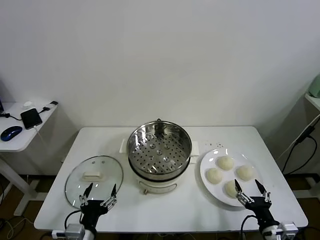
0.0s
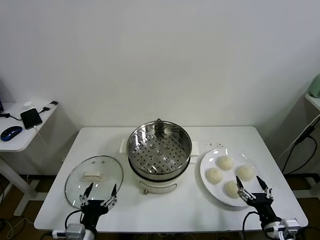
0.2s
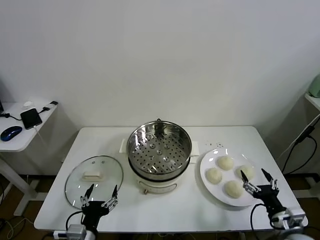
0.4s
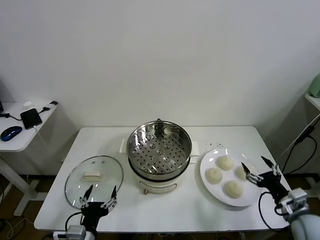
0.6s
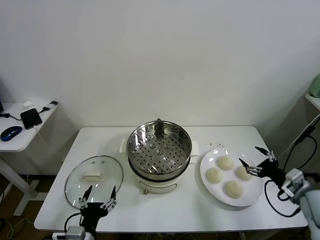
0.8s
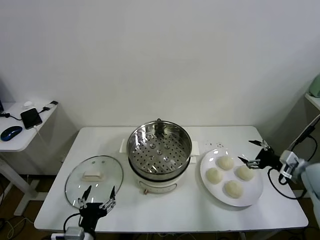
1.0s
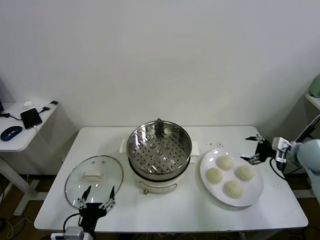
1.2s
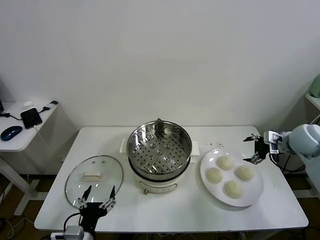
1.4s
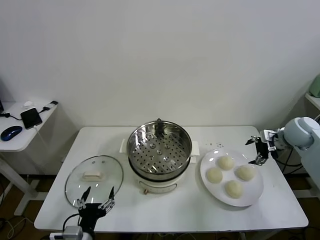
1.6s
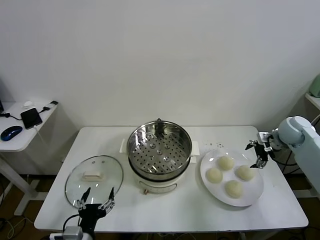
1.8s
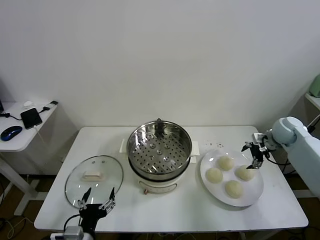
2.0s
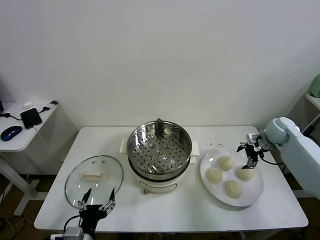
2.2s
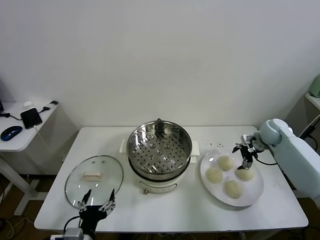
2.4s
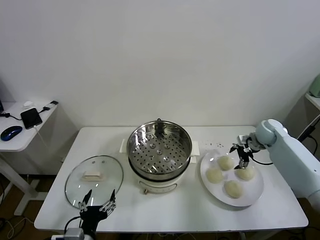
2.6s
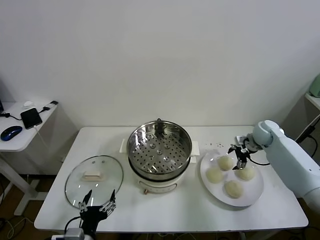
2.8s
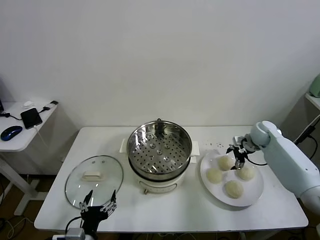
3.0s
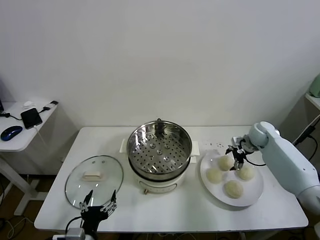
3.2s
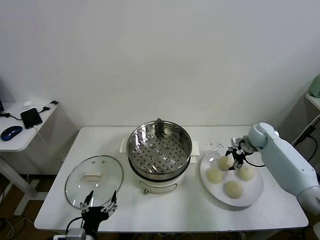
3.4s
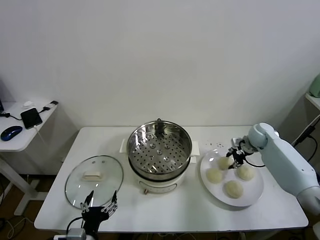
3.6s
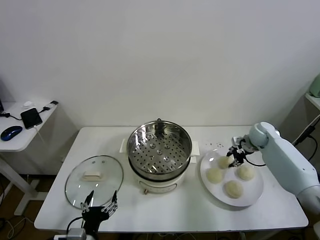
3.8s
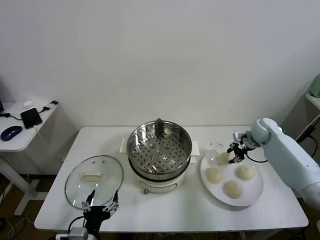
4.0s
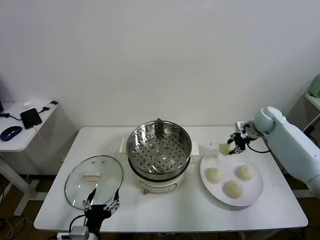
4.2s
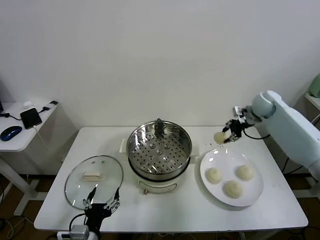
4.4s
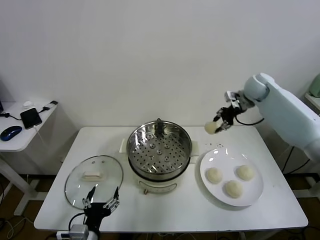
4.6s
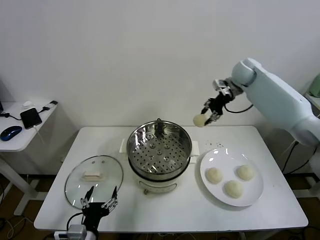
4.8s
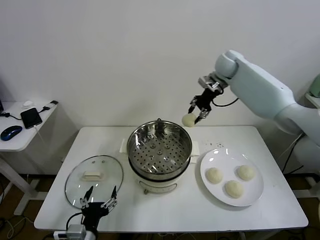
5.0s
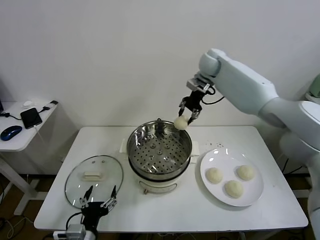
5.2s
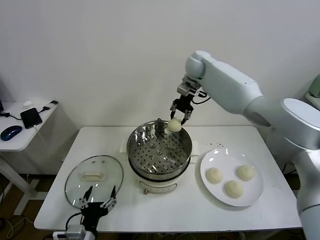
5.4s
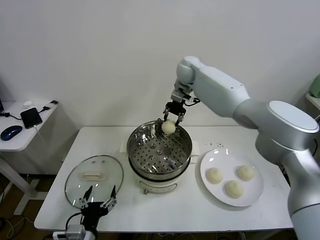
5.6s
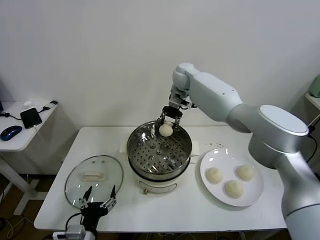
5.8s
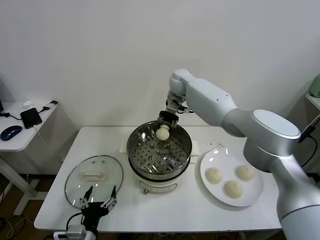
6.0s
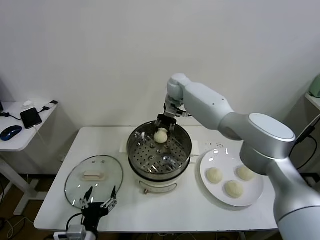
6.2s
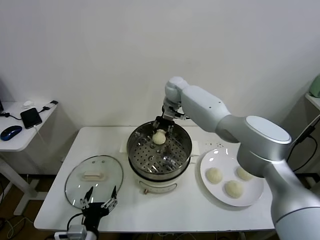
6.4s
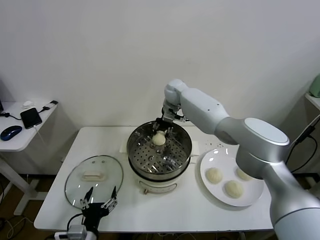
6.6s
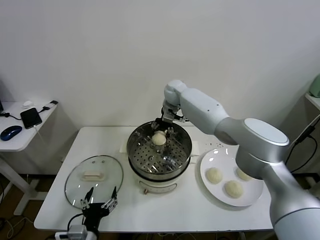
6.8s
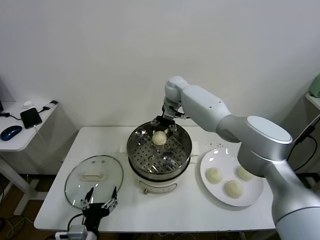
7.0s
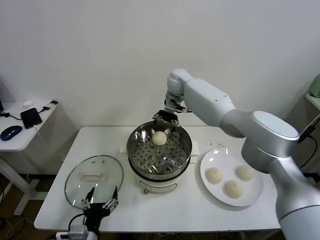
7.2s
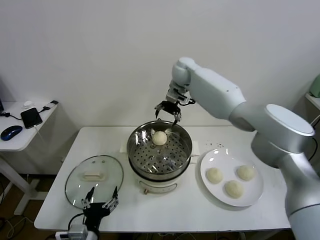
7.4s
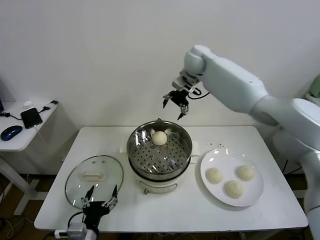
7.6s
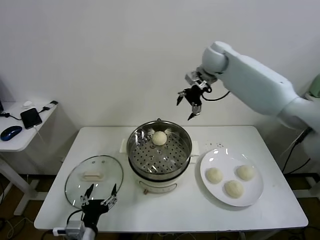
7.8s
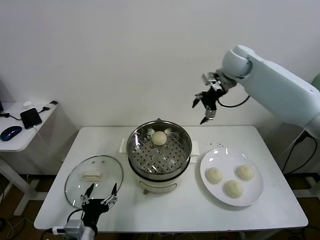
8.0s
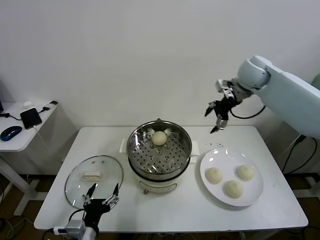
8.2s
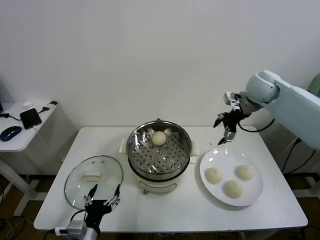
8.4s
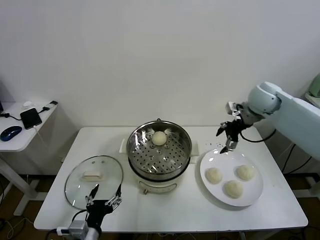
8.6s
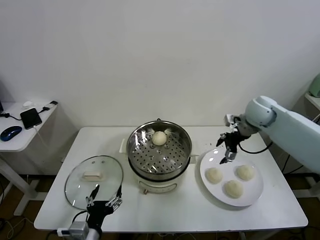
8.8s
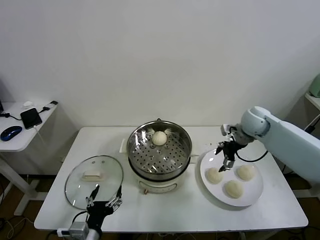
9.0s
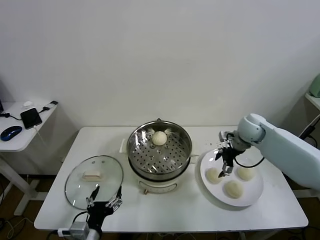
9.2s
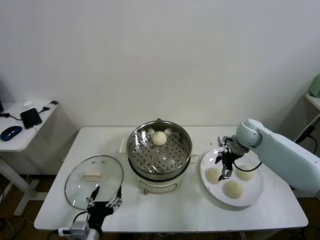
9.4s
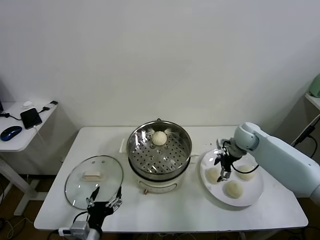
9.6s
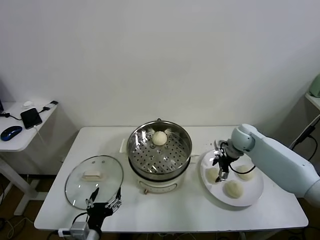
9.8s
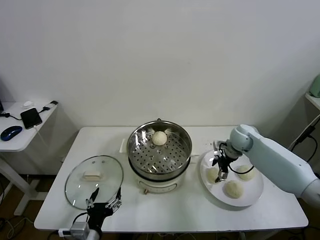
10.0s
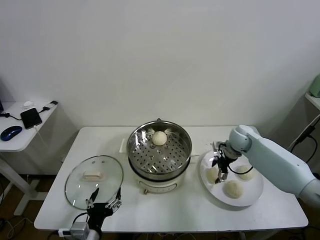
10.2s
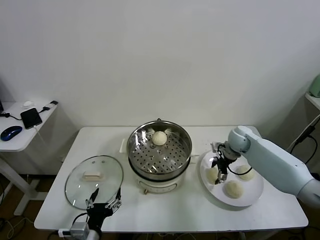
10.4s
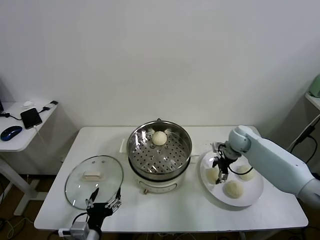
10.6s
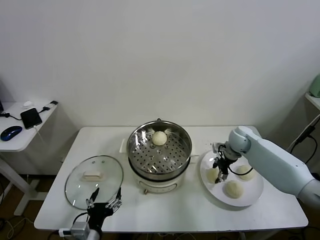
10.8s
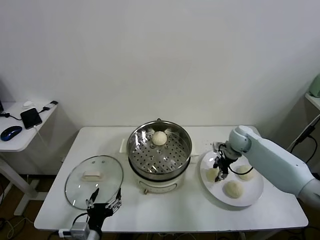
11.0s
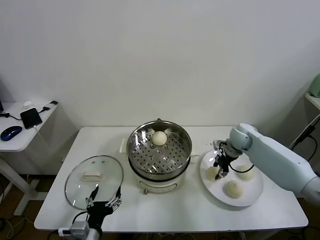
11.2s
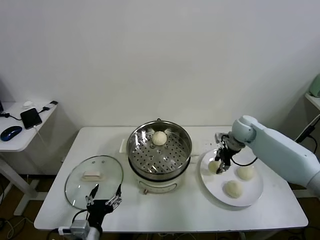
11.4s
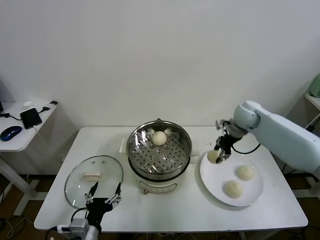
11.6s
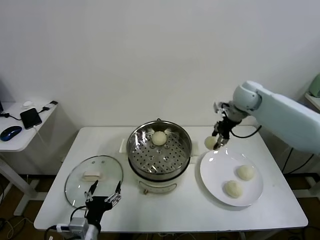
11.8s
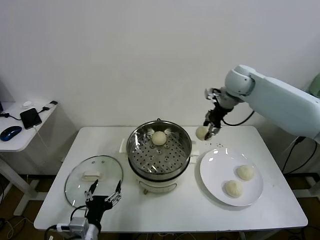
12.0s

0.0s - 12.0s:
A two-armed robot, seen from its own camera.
Task of the whole recording: take steamed baozi put them in steamer.
Step, 0.0s - 3.6s: Grasp the baozi in the plate with right gripper.
Step, 3.8s - 7.0s: Place the baozi on the steamer with right gripper.
Step, 7.2s - 10.6s: Grasp the baozi in the plate with right gripper.
1.6s - 3.0s: The right gripper moves downward, forward and to the left, some 10 cm.
3.0s - 4.4s: The right gripper heads upward, covering roughly 15 cm, and closes its fingers.
4.4s - 6.0s: The right gripper heads to the left, covering some 30 cm.
6.0s - 7.6s: The right gripper moves upward and to the right, roughly 15 cm, and opens up.
7.6s - 9.0s: The right gripper travels downward, to the right and backward by some 30 cm.
9.0s - 10.4s: The right gripper shifts about 10 cm downward.
10.4s - 12.0s: The right gripper shifts roughly 25 cm upward, and closes up.

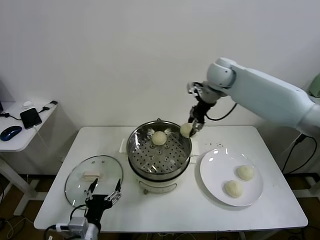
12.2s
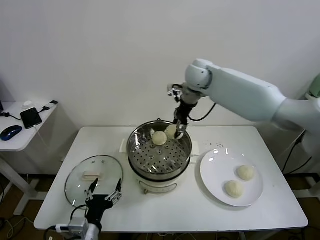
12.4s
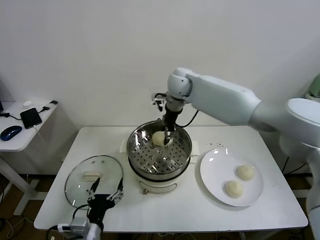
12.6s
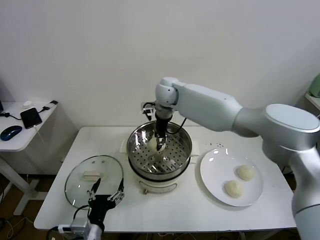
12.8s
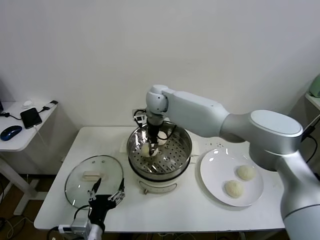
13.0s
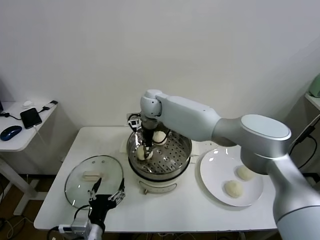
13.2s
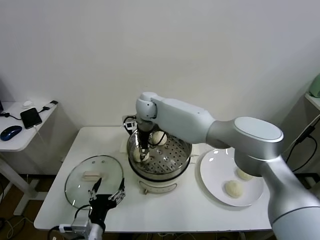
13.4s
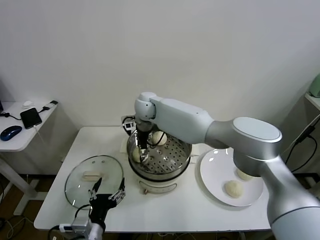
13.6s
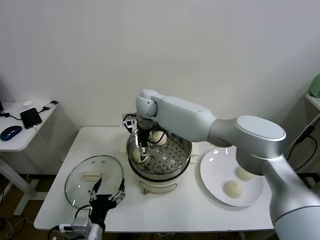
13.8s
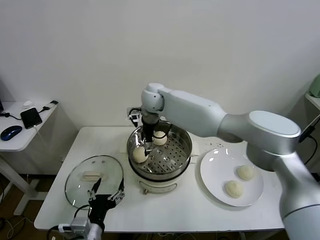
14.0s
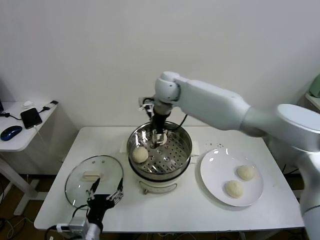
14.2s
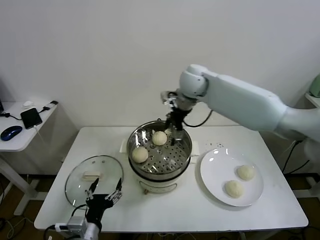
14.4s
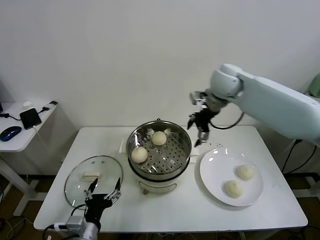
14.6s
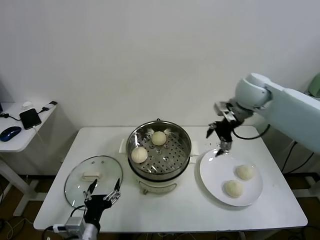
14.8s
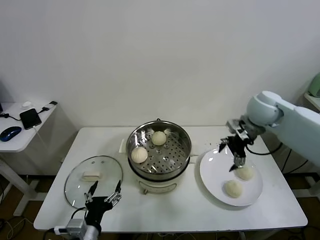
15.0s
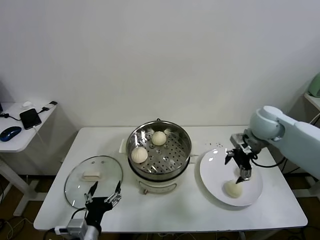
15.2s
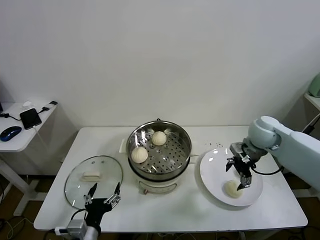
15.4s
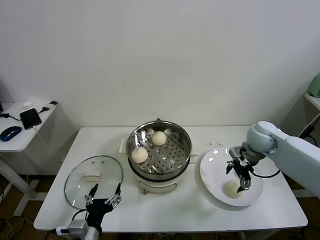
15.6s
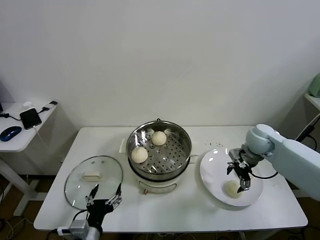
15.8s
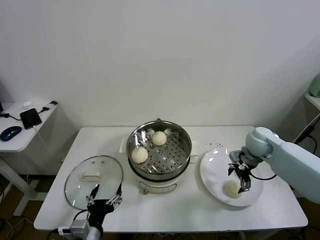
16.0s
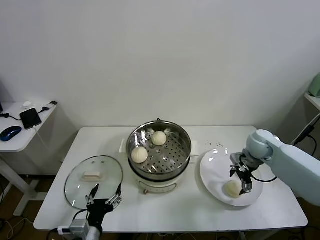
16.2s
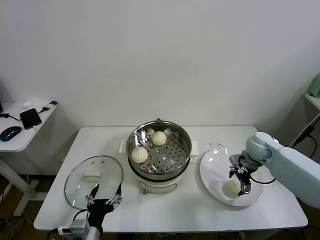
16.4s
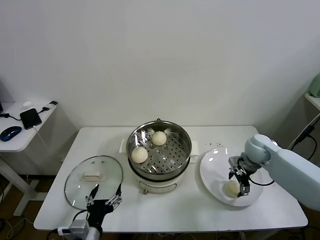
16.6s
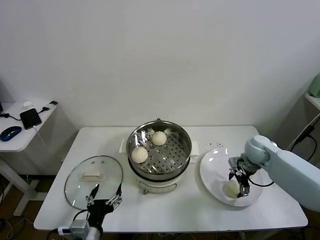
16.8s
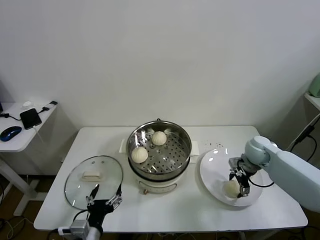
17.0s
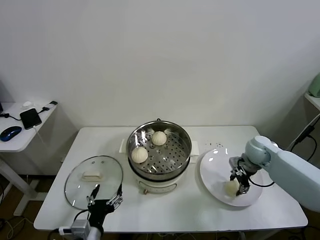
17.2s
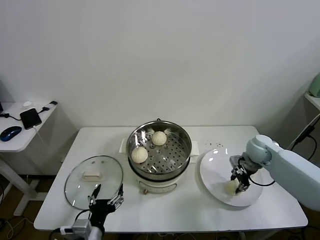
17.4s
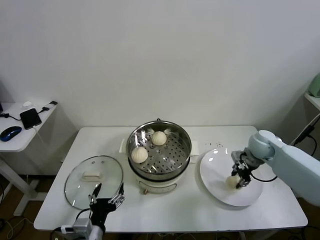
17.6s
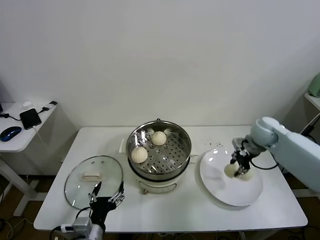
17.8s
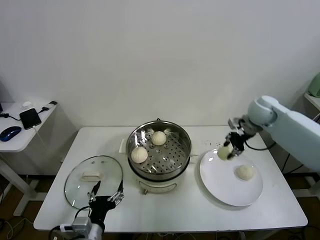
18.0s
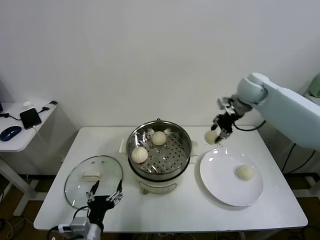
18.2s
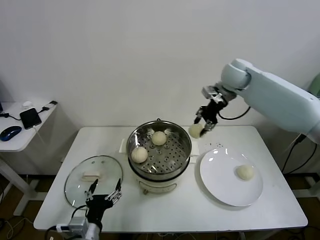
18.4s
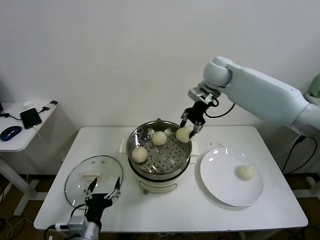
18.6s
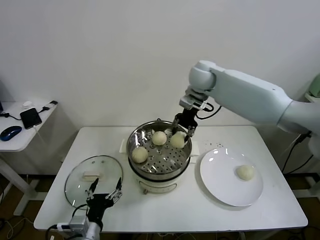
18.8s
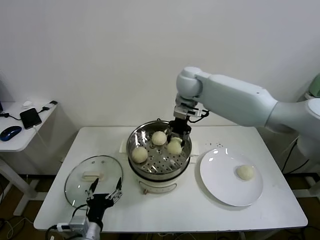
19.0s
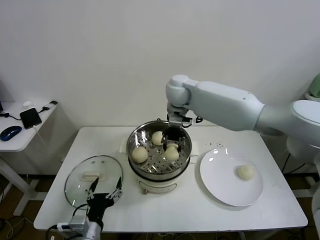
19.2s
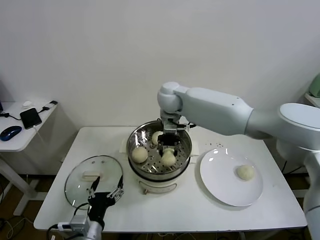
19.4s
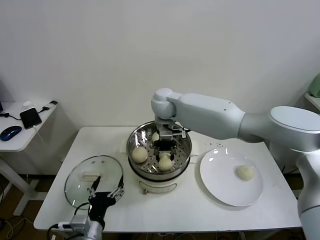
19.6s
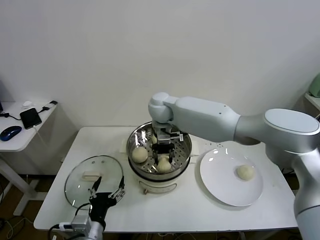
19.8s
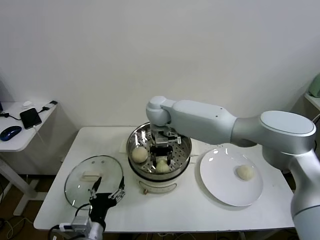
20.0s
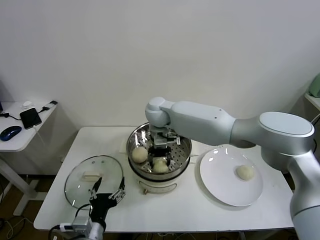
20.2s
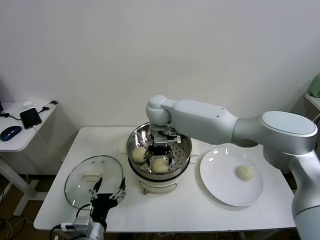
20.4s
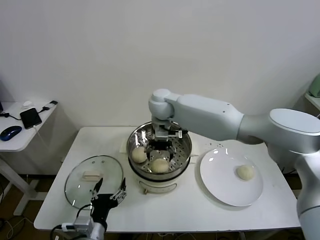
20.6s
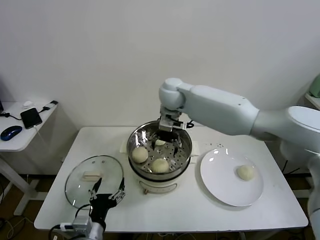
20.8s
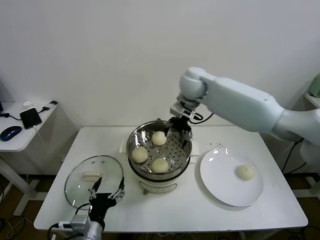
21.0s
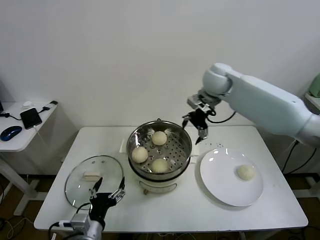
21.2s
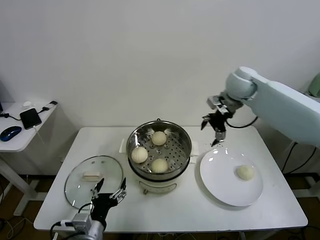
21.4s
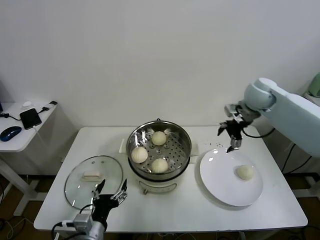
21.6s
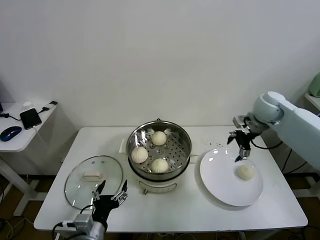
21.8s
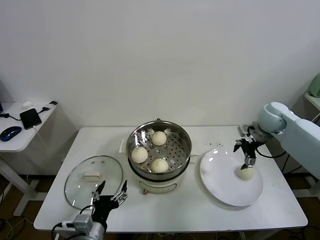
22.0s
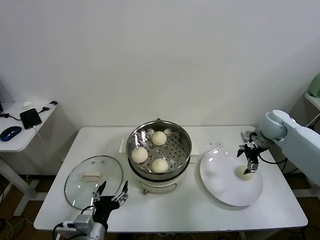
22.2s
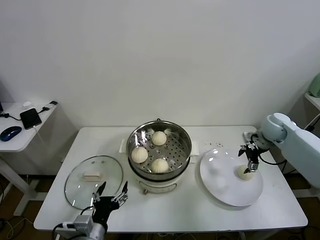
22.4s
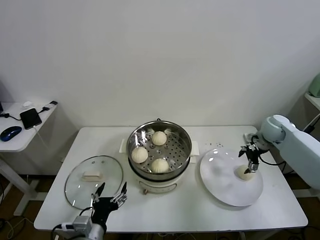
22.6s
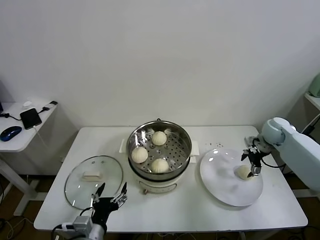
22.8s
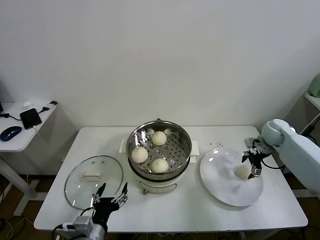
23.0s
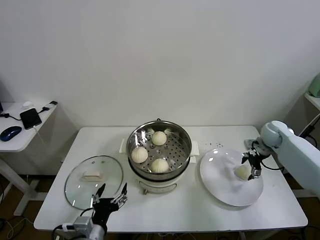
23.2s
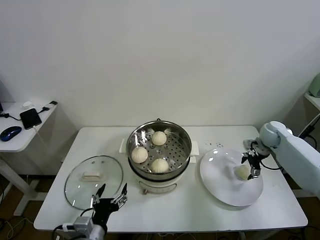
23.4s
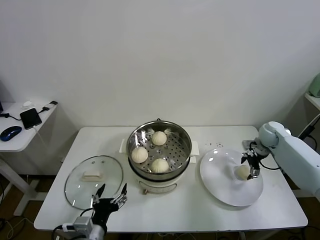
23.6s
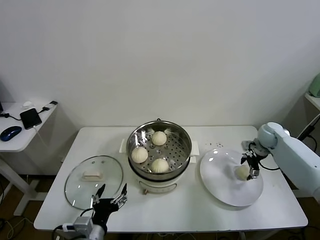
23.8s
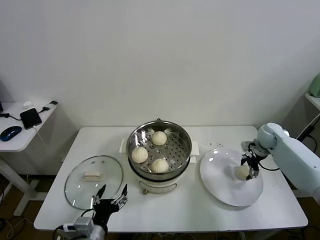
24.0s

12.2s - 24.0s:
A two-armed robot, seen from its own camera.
Task of the whole recording: take steamed baozi put them in steamer.
Step, 12.2s - 13.8s: Place the baozi on the steamer with right gripper.
Step, 14.0s - 17.2s: Grasp the baozi in the plate with right gripper.
Step, 17.4s - 20.4s: Place the baozi on the steamer with right gripper.
12.2s - 13.6s: The right gripper travels to the left and downward by roughly 25 cm, and opens its fingers.
13.6s - 15.2s: The right gripper heads to the right, covering approximately 40 cm, and opens its fingers.
15.2s - 16.6s: The right gripper shifts roughly 15 cm downward.
16.6s - 18.2s: The right gripper goes approximately 25 cm upward and forward, and closes its fingers.
18.2s - 19.6s: The right gripper goes about 30 cm to the left.
19.6s - 21.0s: The right gripper is displaced to the right and upward by approximately 10 cm, and opens up.
21.0s - 22.6s: The right gripper goes approximately 35 cm to the right and downward.
22.6s - 24.0s: The right gripper travels downward by about 5 cm.
